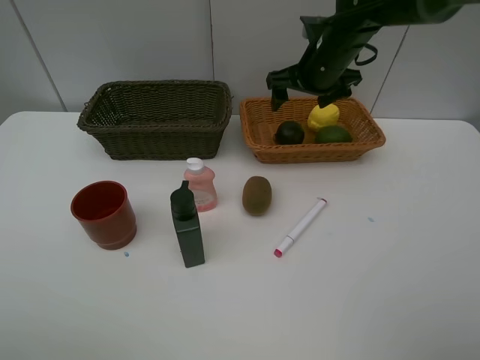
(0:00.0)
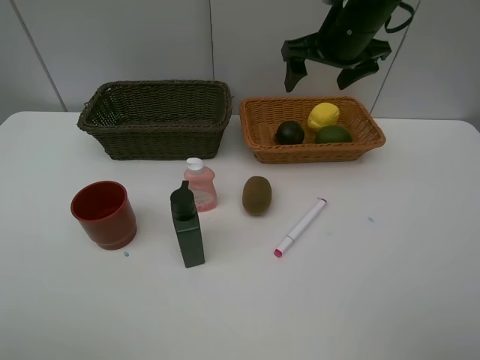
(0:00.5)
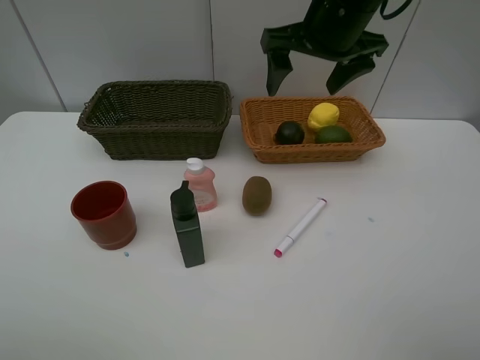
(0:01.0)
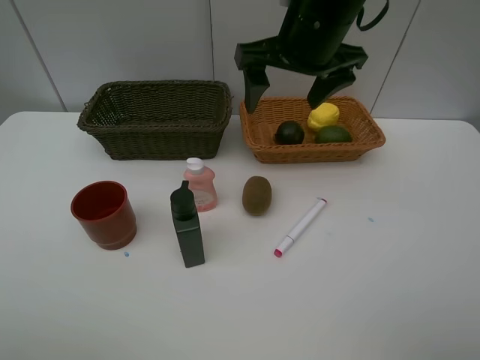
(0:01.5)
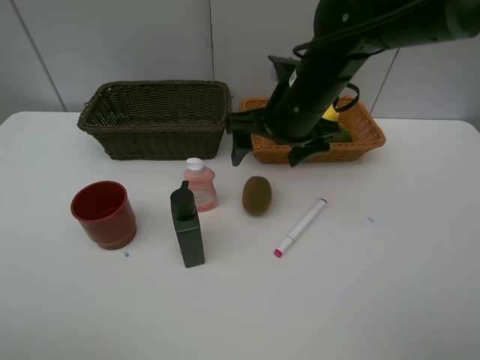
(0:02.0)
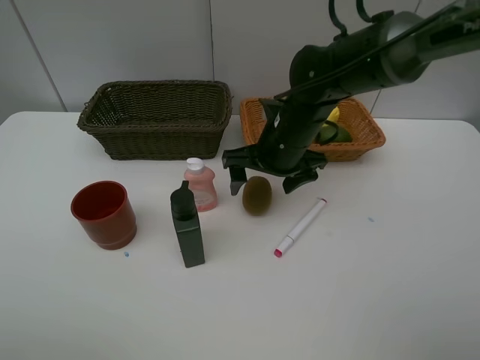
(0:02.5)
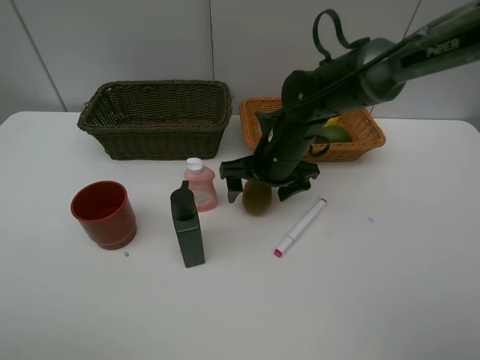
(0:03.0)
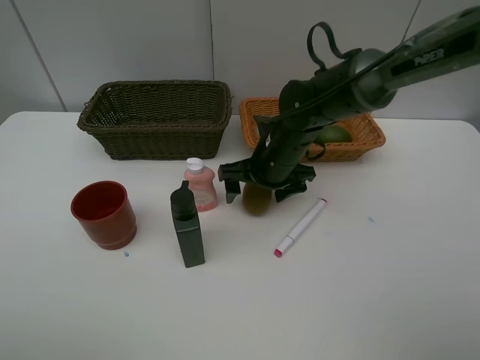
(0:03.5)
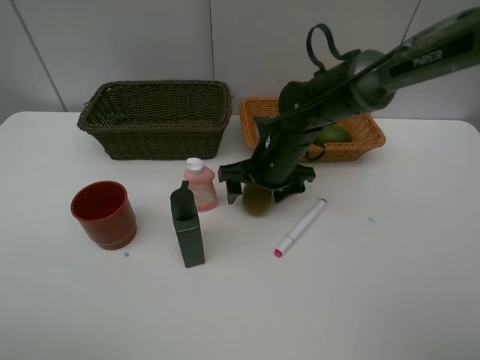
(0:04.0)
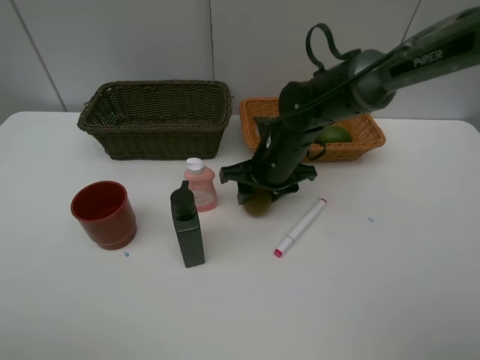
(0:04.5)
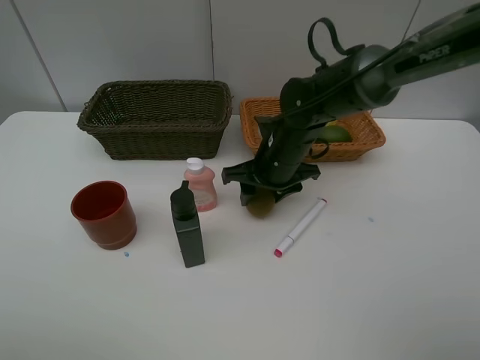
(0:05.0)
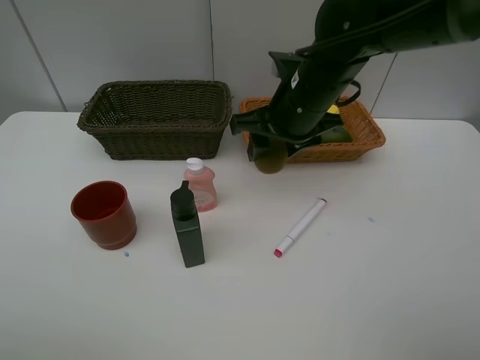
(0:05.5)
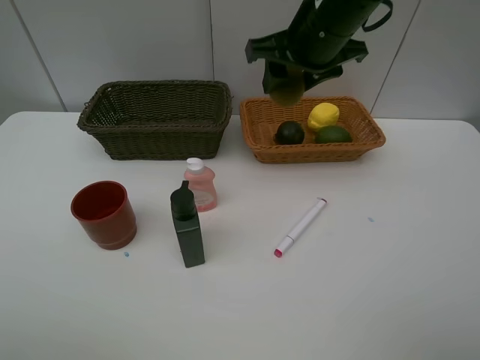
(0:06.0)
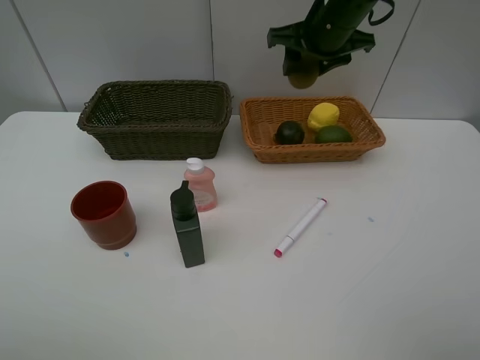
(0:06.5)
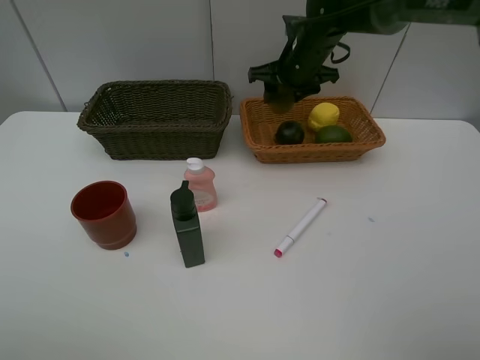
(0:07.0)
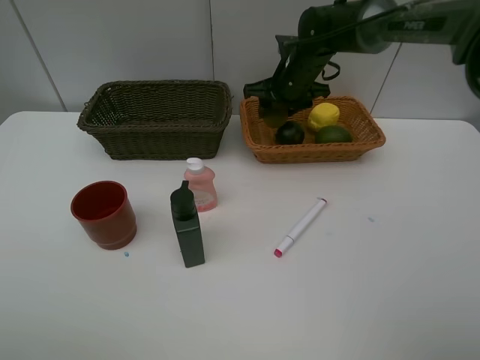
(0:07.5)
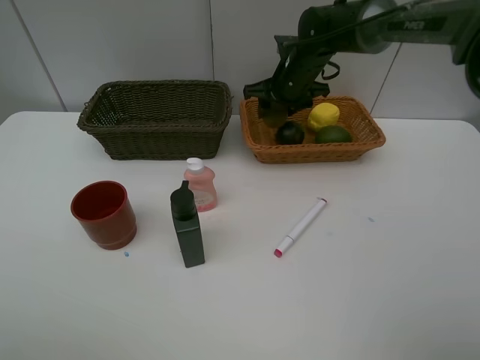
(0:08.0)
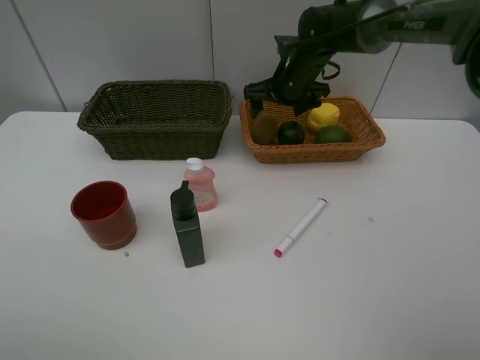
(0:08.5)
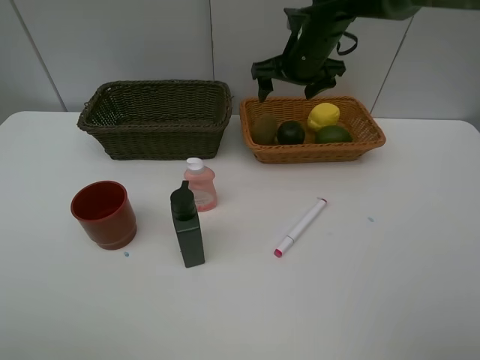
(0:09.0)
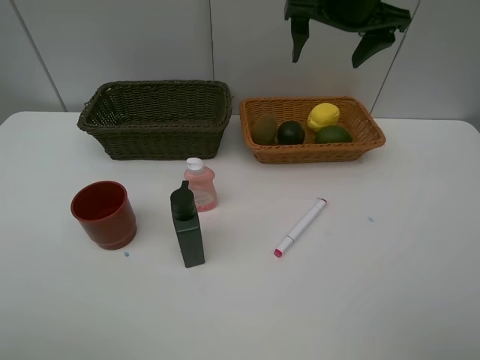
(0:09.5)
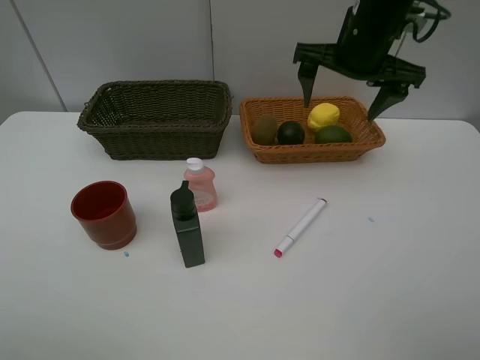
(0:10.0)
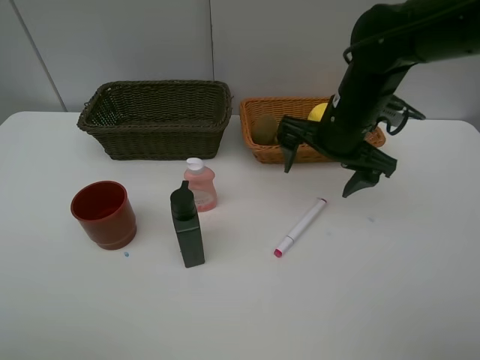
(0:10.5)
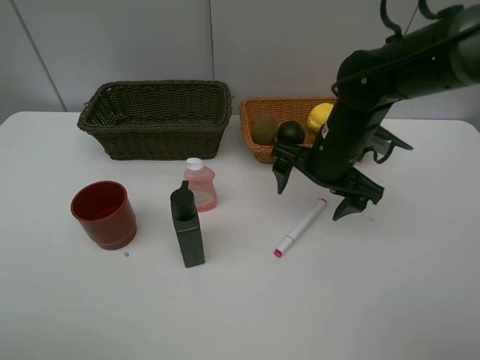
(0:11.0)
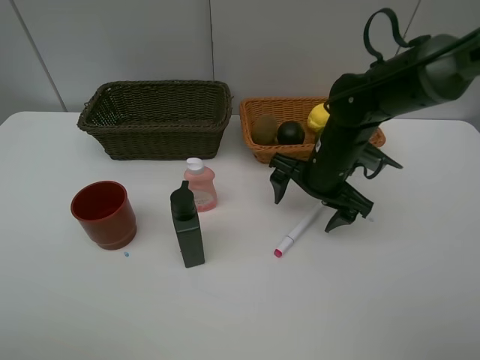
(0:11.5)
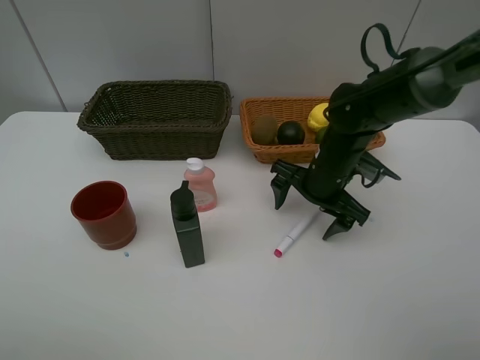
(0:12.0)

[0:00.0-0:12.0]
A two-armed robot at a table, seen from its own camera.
Task of the whole recording: Place multiple objects separately in different baskets.
Step, 0:00.0 to 0:05.0: Pick up kiwi with right gripper.
Step, 0:05.5 to 0:08.5: Place the kiwi in the light basket with right gripper.
0:00.0 to 0:02.0: The right gripper moves backward and to the left, about 15 cm.
0:02.0 to 0:04.0: The right gripper moves downward, about 10 cm.
0:04.0 to 0:06.0: The right gripper shifts approximately 20 cm upward, and closes its fingers.
0:06.0 to 0:08.0: The right gripper heads forward and downward, covering approximately 15 cm.
0:08.0 to 0:10.0: The right gripper is displaced backward and upward by approximately 15 cm, and opens.
0:10.0 to 0:12.0: The right gripper shifts approximately 15 cm downward.

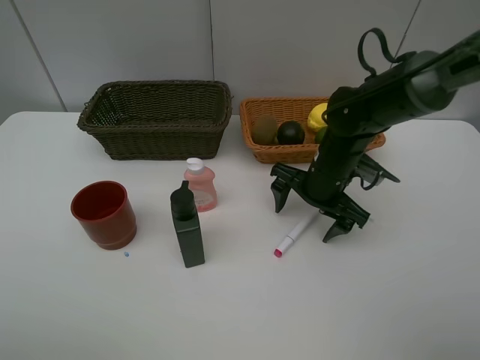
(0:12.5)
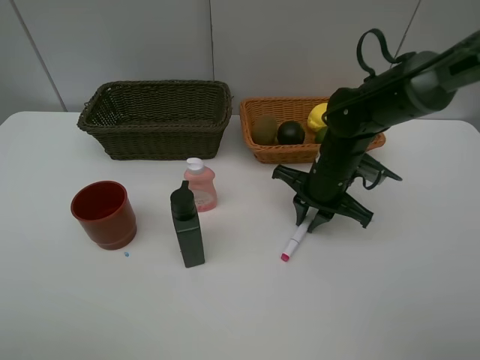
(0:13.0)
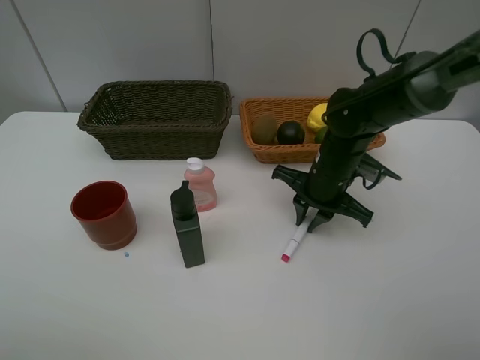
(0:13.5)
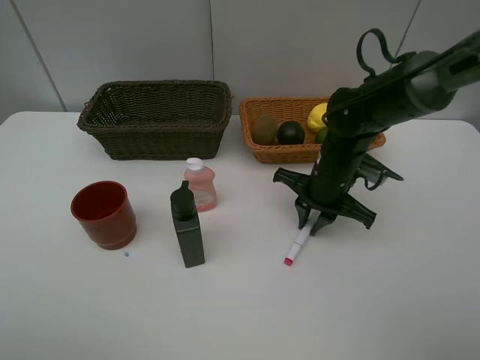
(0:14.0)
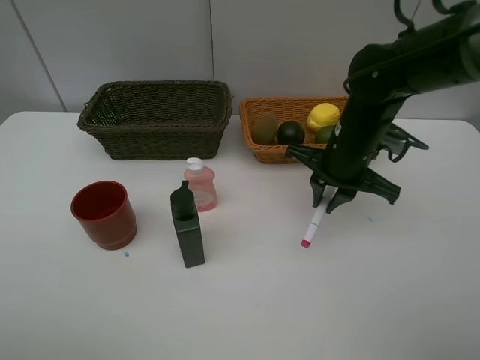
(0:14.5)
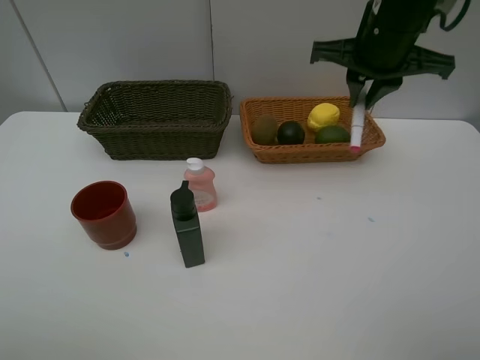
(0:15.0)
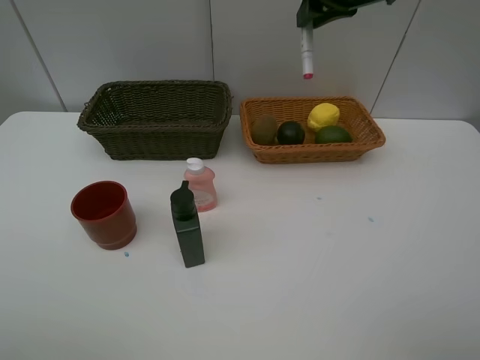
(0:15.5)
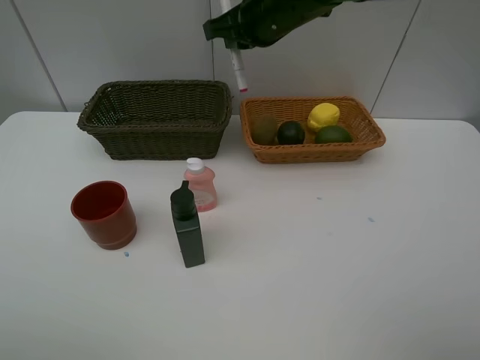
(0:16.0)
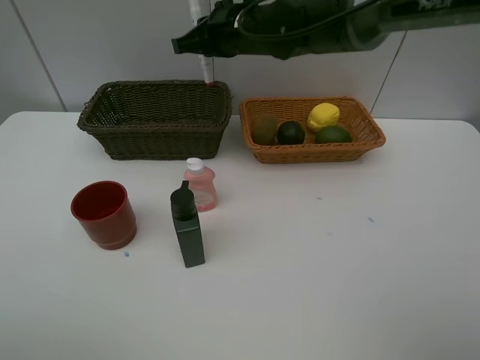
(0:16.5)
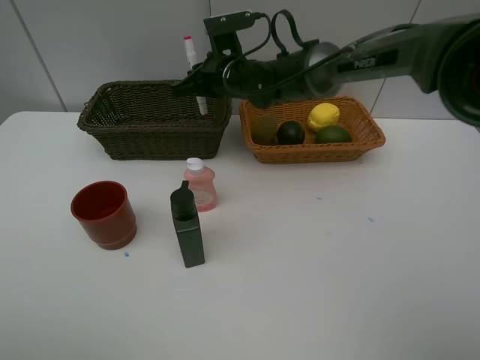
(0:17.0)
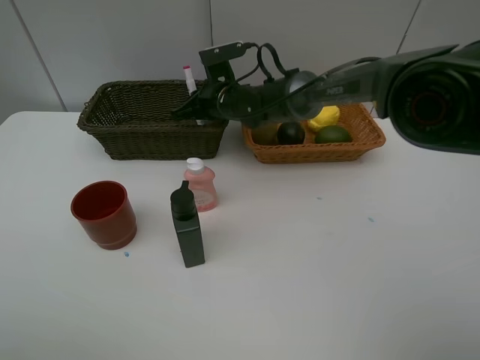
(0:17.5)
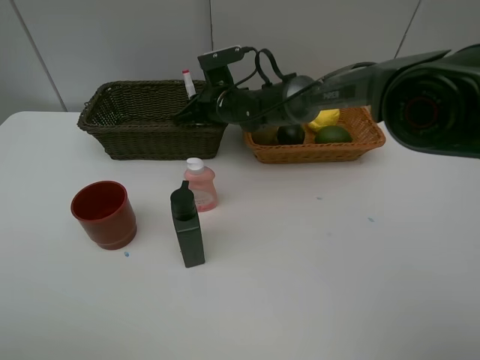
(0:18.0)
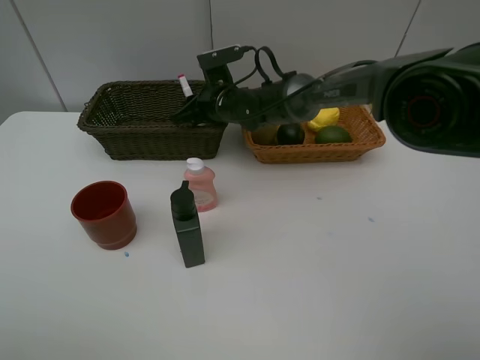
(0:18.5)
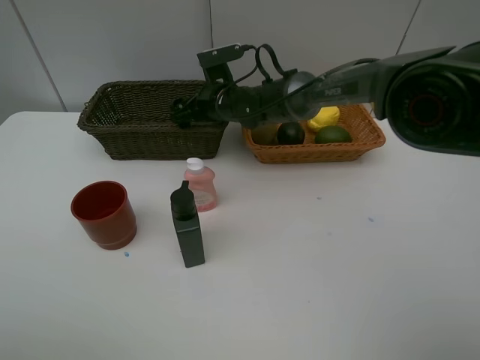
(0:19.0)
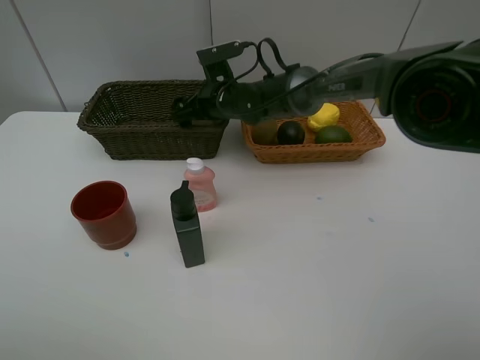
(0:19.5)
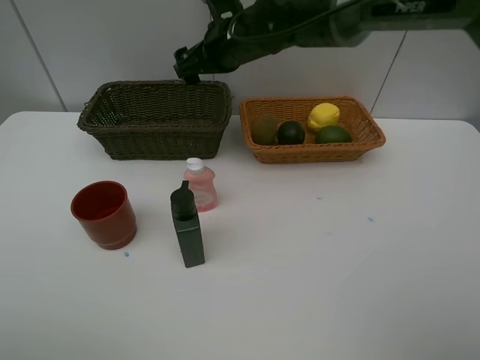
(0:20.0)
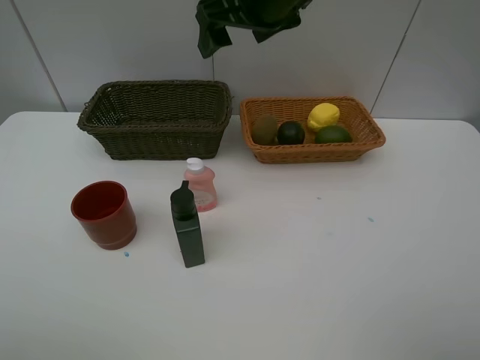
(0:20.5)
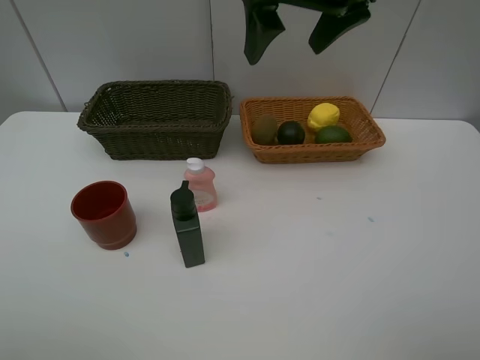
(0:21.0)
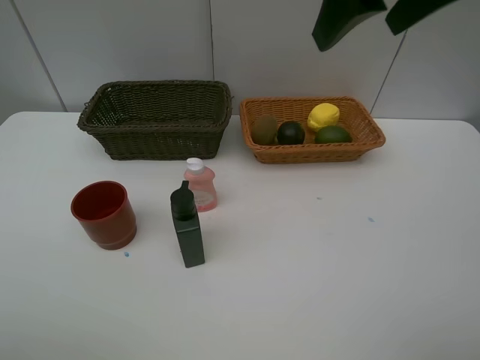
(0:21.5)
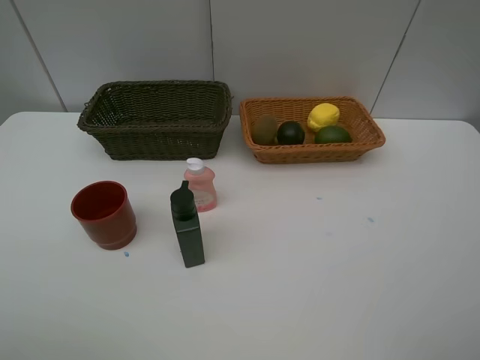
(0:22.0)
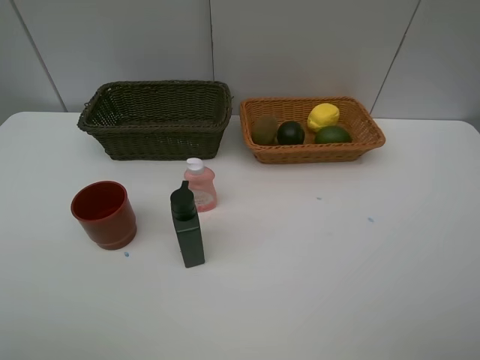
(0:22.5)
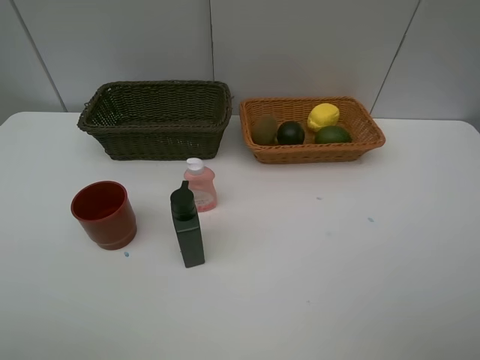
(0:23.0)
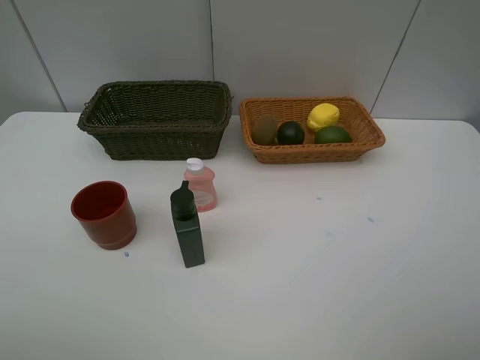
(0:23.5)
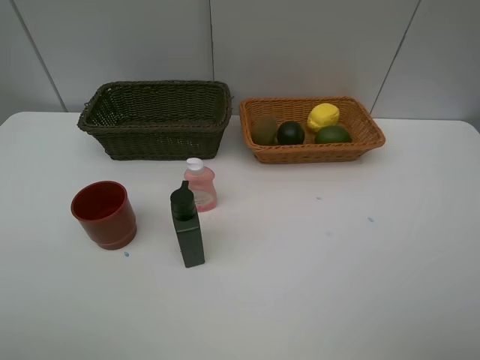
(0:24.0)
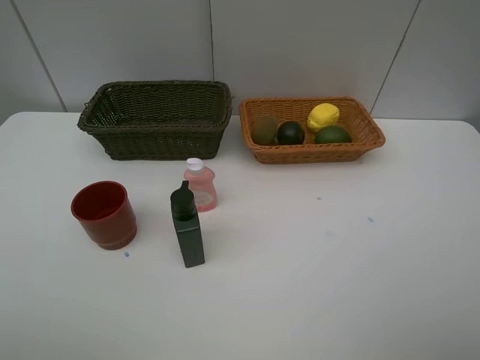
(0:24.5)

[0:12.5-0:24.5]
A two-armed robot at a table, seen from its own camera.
Task of the whole recording: Place multiple objects separately in different baskets.
Step, 0:14.5 to 0:19.5: Place the red marker in the dark basket with right gripper.
0:12.5 to 0:14.5: The right gripper travels upward by approximately 5 cm, and closes.
0:14.5 to 0:16.5: The right gripper moves to the left, forward and upward, about 20 cm.
0:16.5 to 0:18.5: The right gripper moves downward, roughly 15 cm, and opens.
0:18.5 to 0:20.5: The right gripper goes some 25 cm upward and backward, and opens up.
0:20.5 to 0:22.5: The right gripper goes roughly 40 cm backward and to the right.

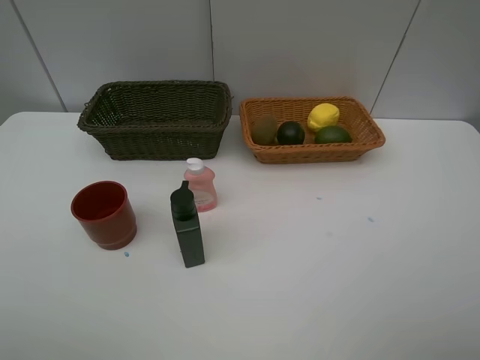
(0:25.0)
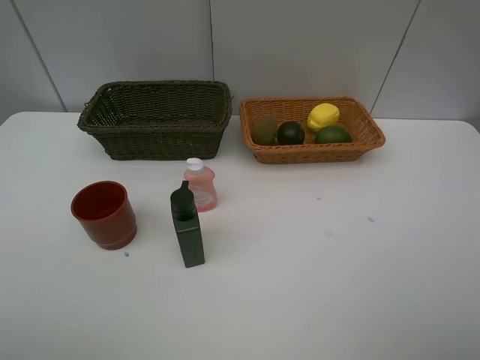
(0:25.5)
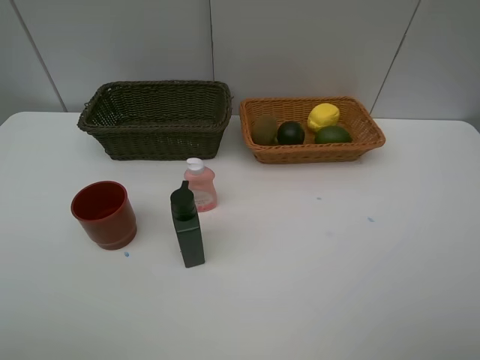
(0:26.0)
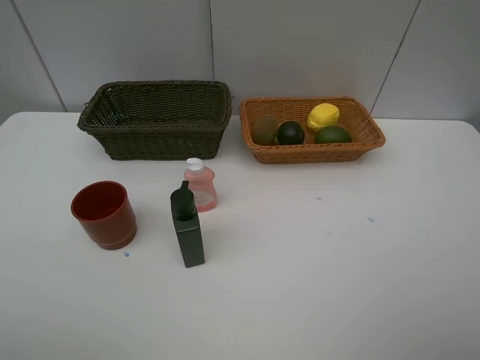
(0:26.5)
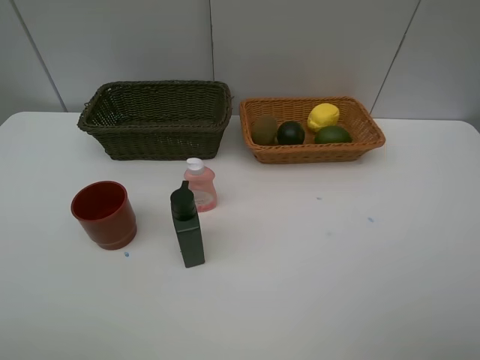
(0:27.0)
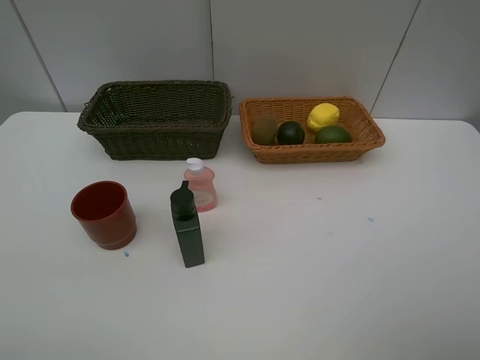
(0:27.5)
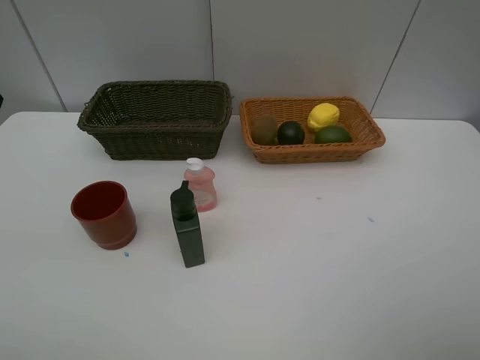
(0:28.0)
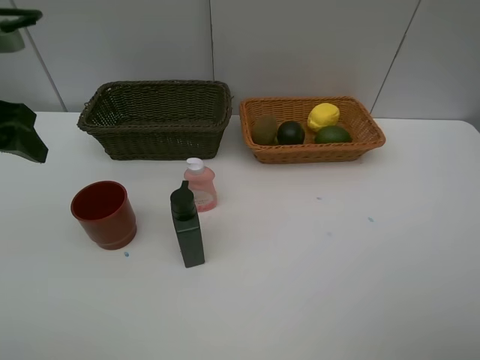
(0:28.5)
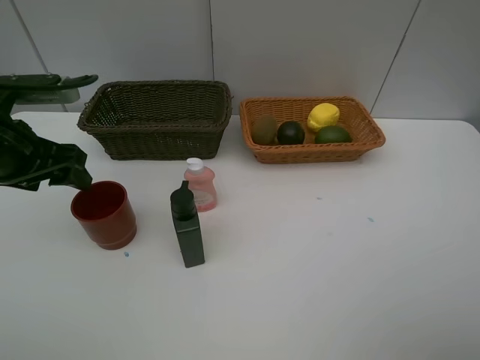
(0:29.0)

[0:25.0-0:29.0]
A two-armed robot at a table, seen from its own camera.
Task of the whole recording: Place multiple objects separately in different baskets.
0:27.0 to 0:29.0: The left gripper travels forward and downward by about 30 cm.
